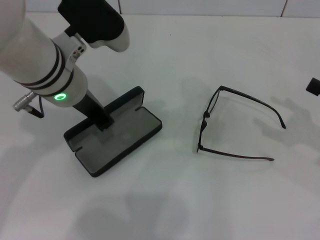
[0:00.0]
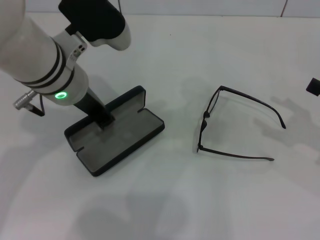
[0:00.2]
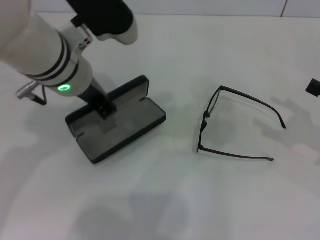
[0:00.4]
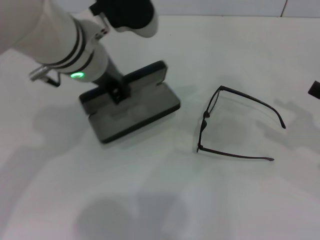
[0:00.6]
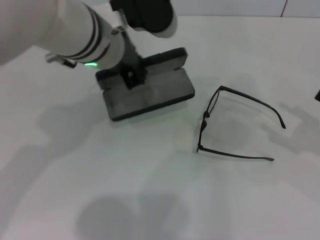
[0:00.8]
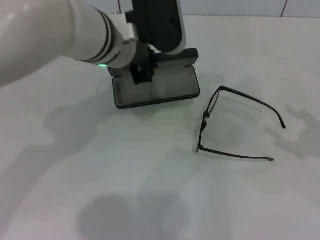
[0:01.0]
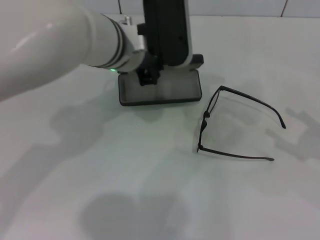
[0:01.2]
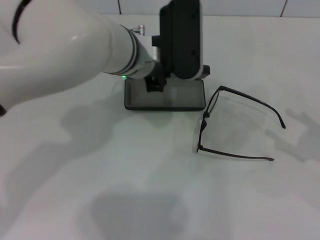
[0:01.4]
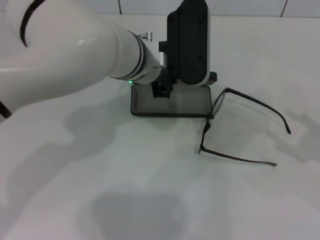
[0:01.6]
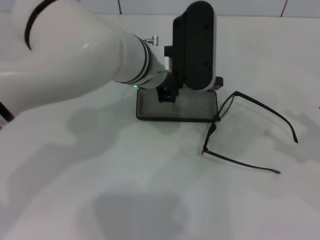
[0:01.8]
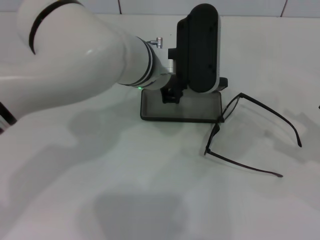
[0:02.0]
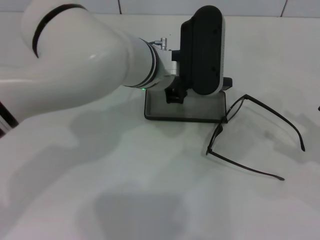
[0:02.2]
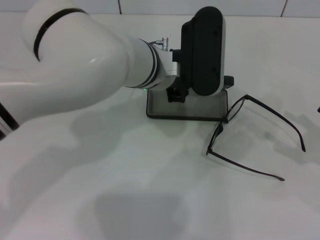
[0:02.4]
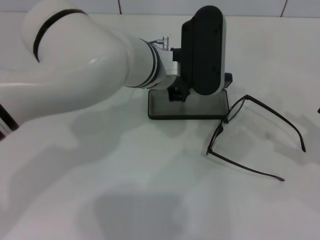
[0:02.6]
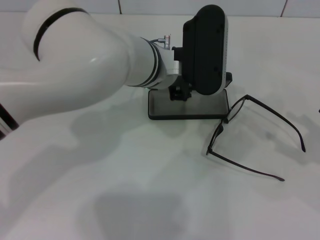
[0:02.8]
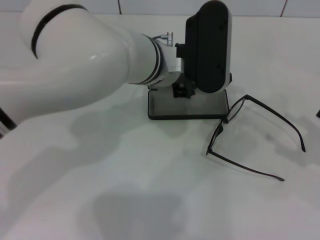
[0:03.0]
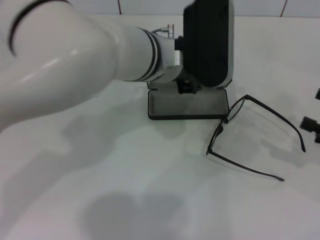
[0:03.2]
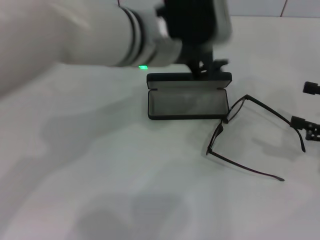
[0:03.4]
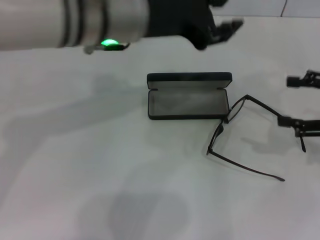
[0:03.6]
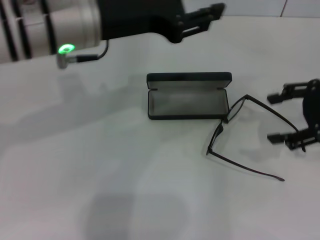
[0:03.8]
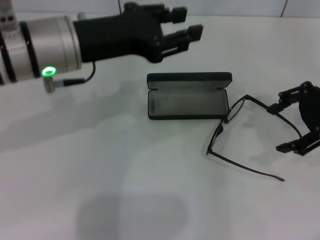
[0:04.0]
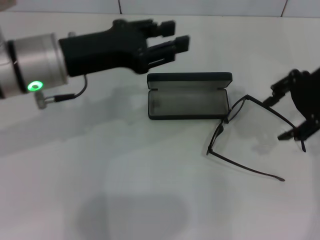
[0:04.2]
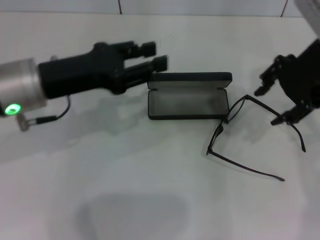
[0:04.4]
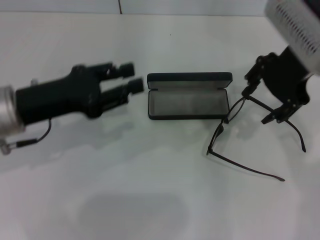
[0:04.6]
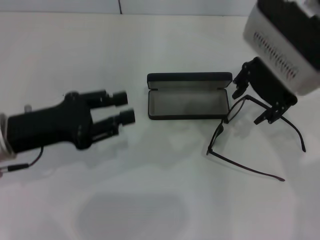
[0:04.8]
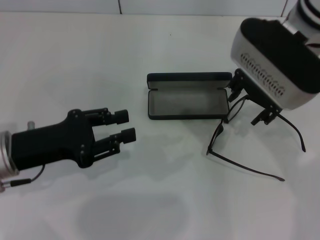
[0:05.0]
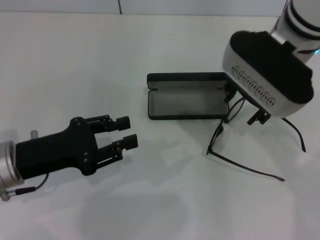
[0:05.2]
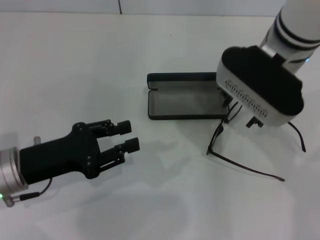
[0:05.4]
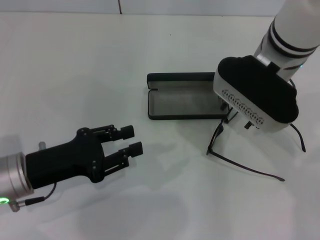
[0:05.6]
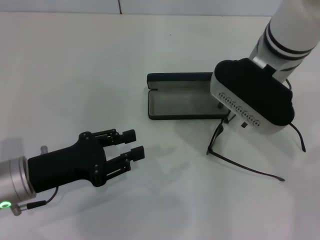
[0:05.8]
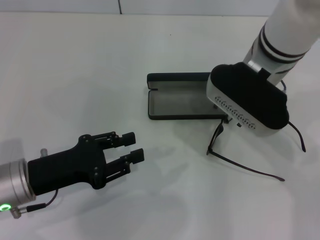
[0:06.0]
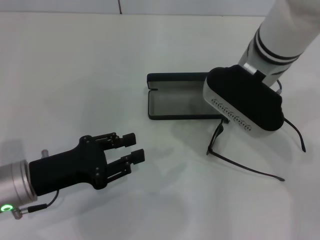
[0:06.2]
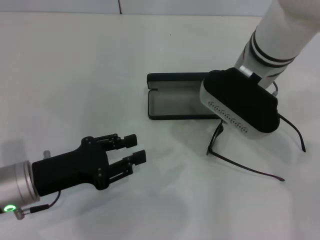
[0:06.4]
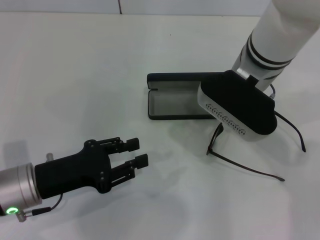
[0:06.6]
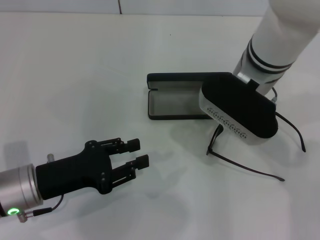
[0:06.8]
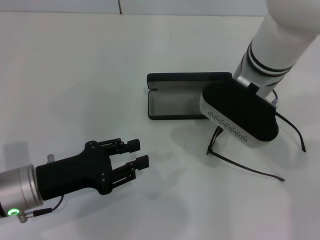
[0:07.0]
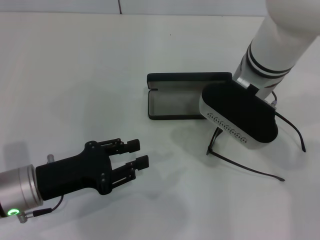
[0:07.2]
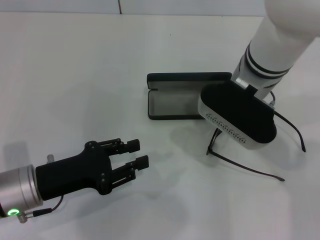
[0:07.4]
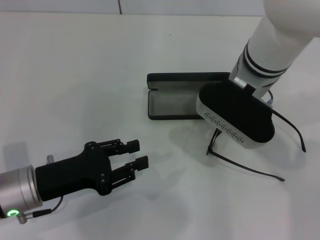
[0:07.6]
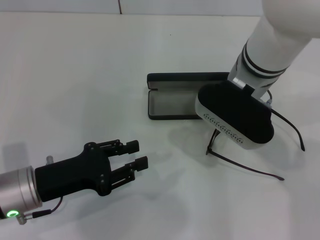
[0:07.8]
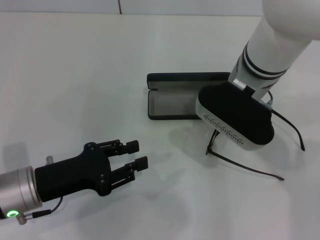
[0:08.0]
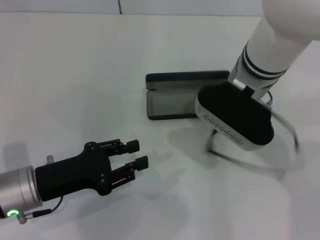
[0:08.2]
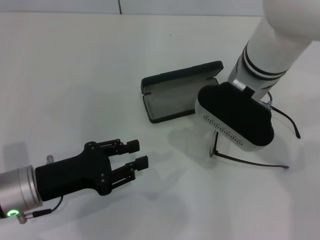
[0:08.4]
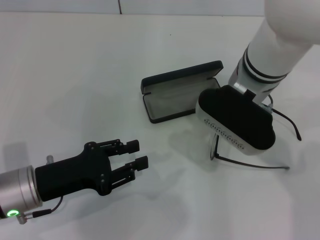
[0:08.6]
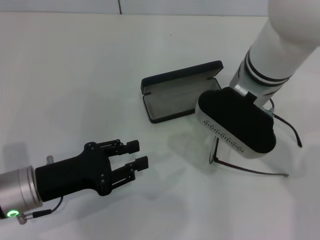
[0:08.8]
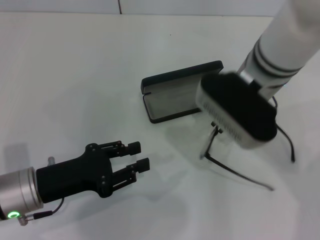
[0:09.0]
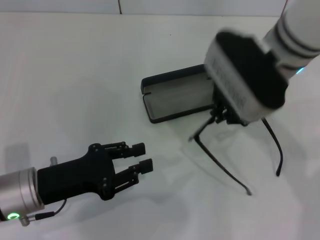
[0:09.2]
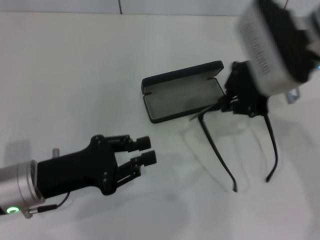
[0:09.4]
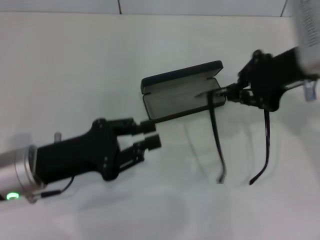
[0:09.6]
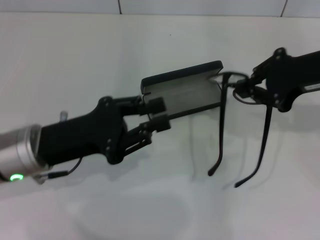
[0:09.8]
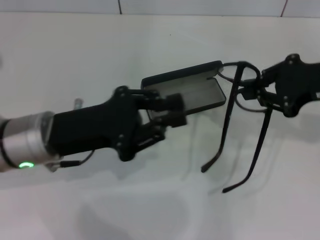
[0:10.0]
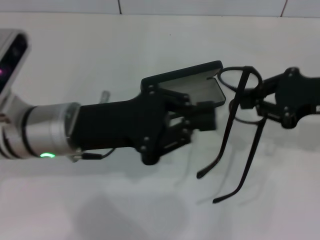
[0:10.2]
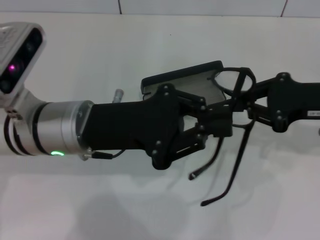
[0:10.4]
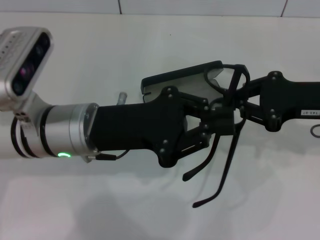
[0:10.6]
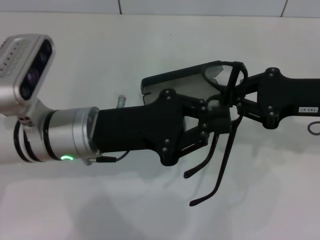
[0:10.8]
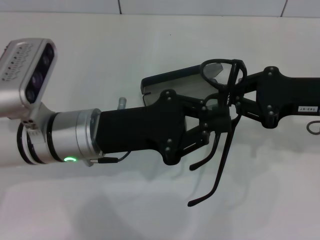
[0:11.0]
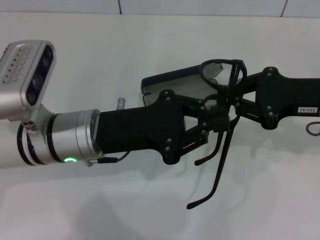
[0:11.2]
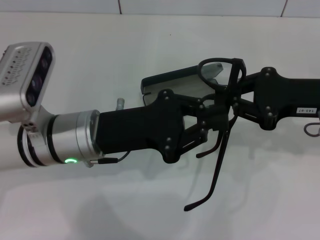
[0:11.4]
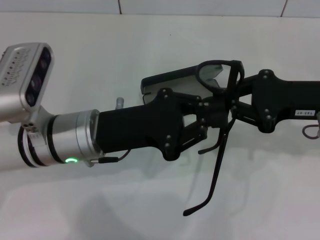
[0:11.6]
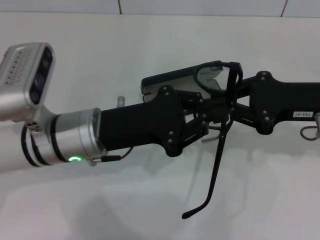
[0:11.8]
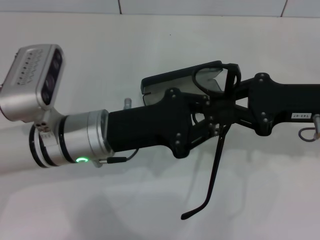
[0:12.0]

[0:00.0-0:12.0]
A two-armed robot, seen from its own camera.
Step, 0:00.0 to 0:03.0: Place the glasses case in the center of the table with your left hand.
Step, 0:03.4 to 0:08.6: Grab the eyeglass frame with your right hand.
0:00.0 to 0:01.6: The left gripper travels to the right by roughly 10 cm.
0:01.6 to 0:03.0: The left gripper opens up.
0:03.0 to 0:04.4: The right gripper travels to the left, upward and forward by about 30 cm. Meanwhile the left gripper shifts roughly 20 cm to the left.
0:04.4 to 0:06.0: The left gripper goes approximately 15 cm downward and backward. The right gripper heads to the left and downward, covering approximately 10 cm.
0:06.0 to 0:07.6: The grippers stay close to where they were, moving slightly.
0:07.6 to 0:09.0: The right gripper closes.
0:09.0 to 0:10.4: The left gripper is displaced upward, to the right and forward by approximately 15 cm, and closes its fingers. The right gripper shifts roughly 15 cm to the right.

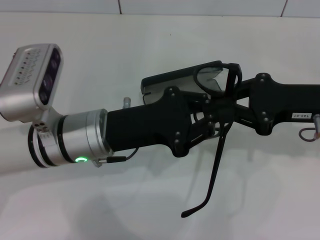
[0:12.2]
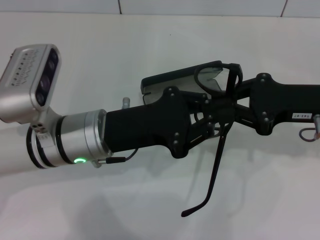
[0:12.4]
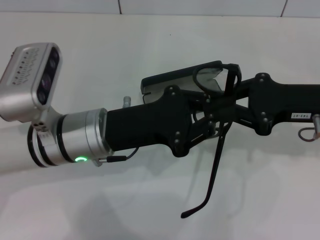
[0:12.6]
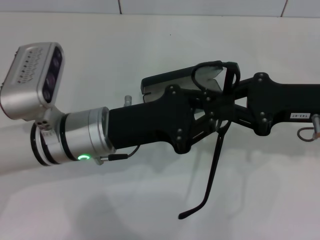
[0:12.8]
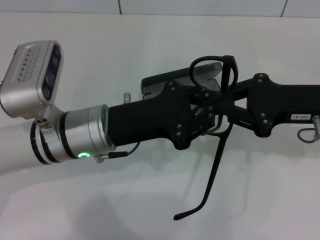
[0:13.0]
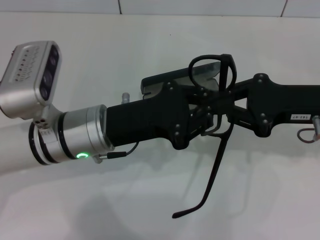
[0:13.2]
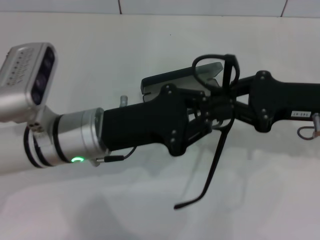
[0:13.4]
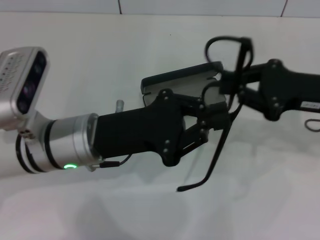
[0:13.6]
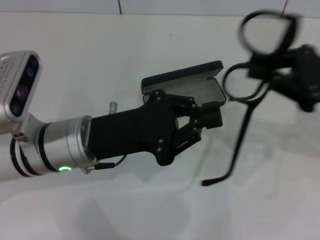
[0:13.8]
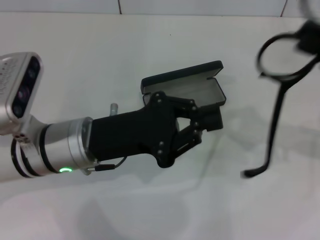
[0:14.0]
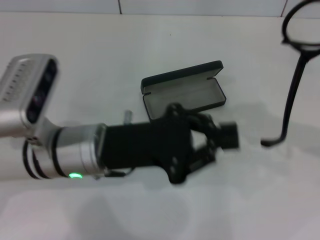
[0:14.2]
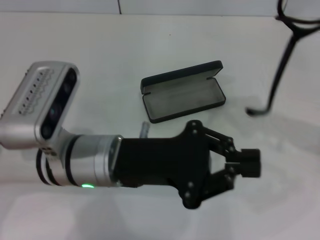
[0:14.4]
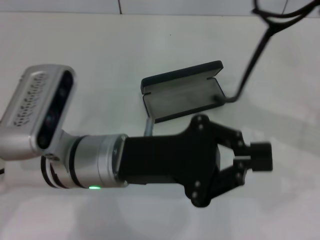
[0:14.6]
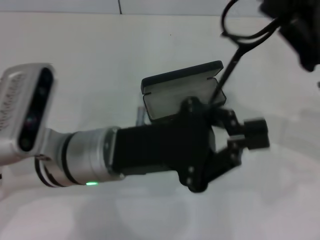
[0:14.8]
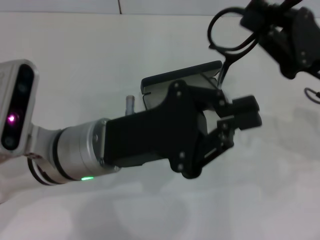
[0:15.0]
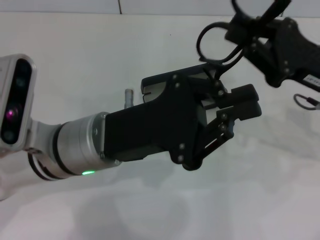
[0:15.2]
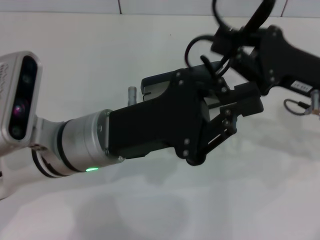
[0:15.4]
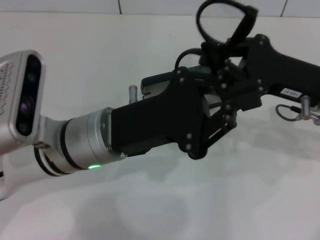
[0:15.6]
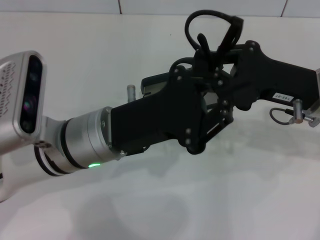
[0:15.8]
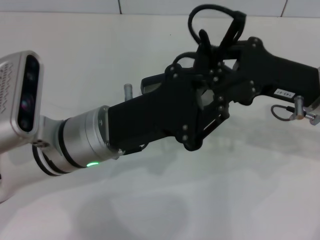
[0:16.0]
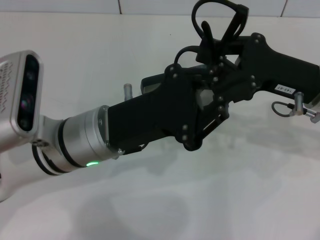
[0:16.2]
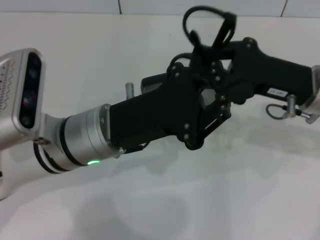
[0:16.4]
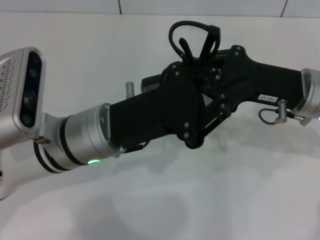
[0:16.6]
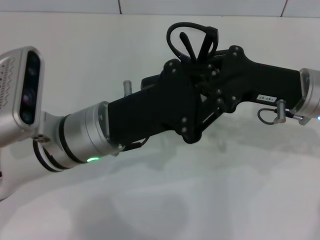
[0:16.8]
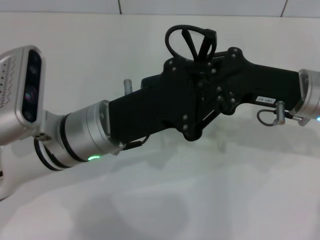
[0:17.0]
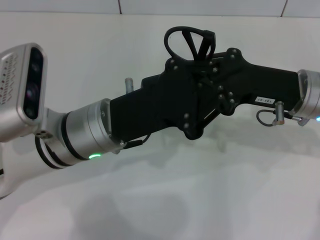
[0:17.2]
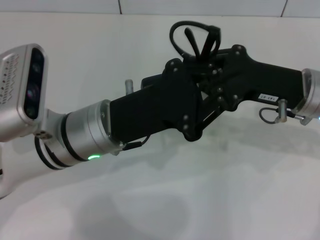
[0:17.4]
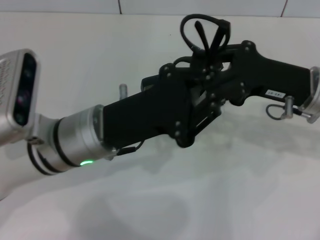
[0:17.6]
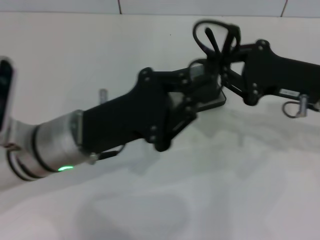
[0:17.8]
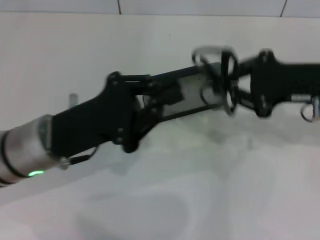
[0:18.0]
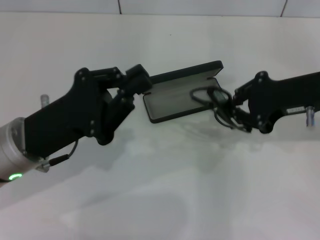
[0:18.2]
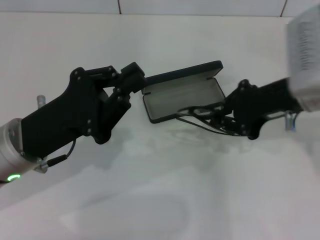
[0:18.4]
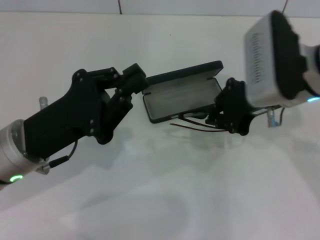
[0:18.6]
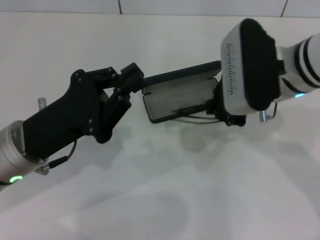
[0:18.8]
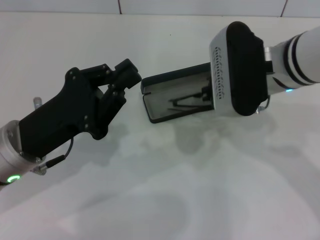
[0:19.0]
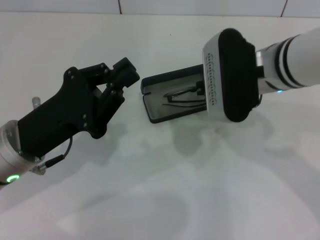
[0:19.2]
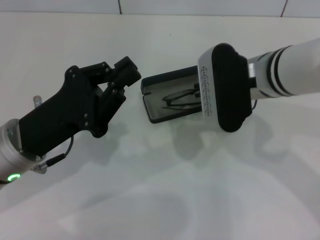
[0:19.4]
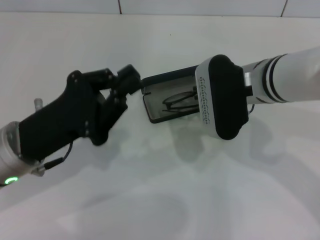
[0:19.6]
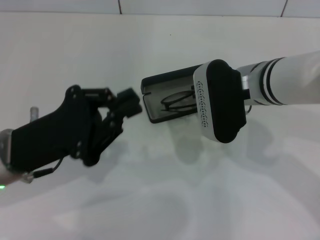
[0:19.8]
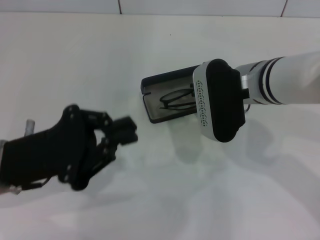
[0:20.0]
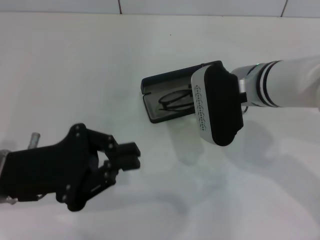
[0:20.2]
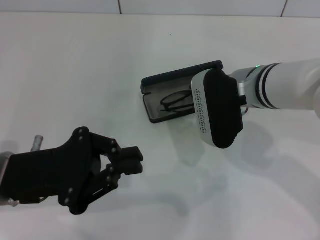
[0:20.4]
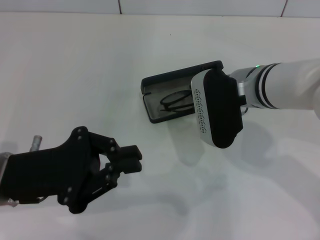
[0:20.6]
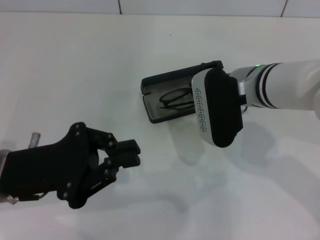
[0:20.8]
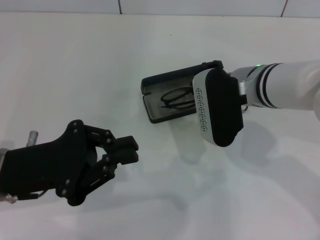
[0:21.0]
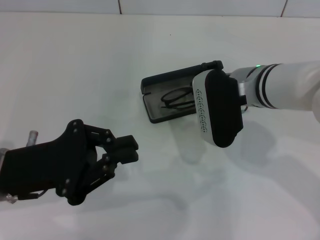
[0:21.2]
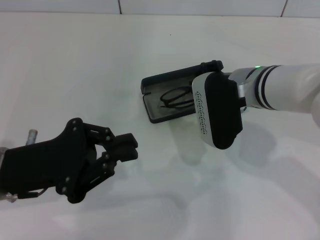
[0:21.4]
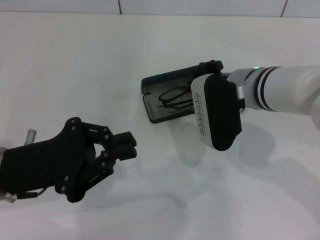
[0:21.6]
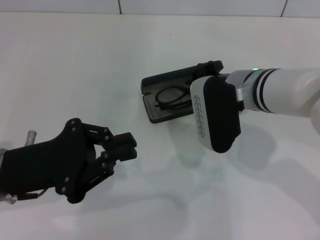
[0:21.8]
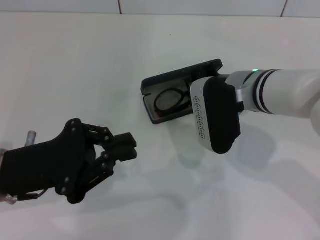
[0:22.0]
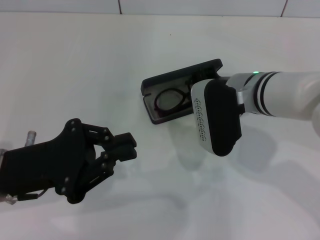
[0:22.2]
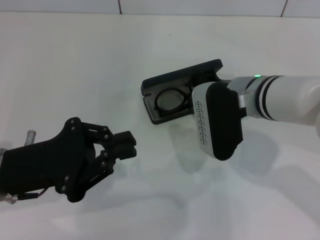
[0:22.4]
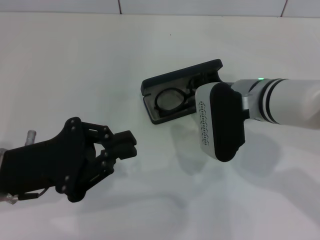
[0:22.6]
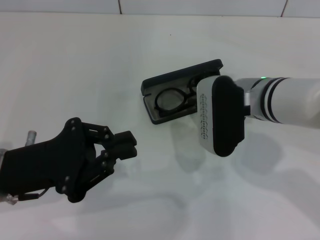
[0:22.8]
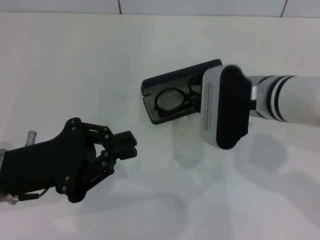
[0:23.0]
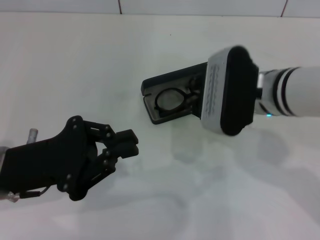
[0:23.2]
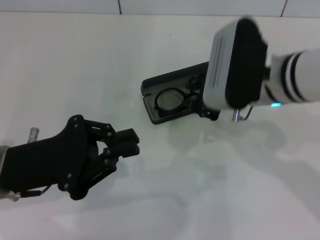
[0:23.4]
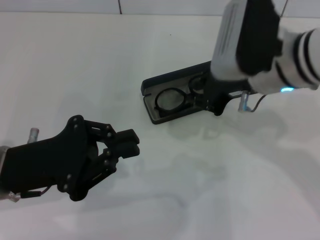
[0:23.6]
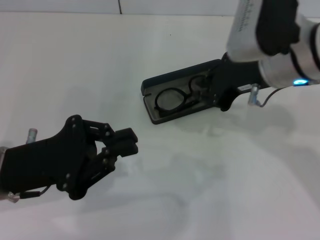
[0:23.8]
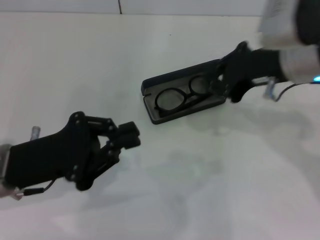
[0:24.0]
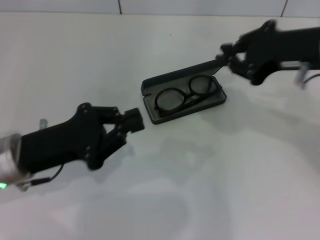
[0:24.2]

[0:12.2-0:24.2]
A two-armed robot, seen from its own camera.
Step, 0:12.2 to 0:16.6: Fold the frame with your left hand.
Step, 0:17.0 to 0:23.0: Put the glasses into the case with your right hand.
0:16.6 to 0:18.2: The right gripper changes place by approximately 5 cm, while the left gripper shifts about 10 cm to the left.
0:18.2 to 0:19.8: The right gripper moves to the left, roughly 10 cm.
0:19.8 to 0:22.6: The grippers move only a little.
0:22.6 to 0:24.2: The right gripper is displaced upward and to the right by approximately 15 cm.
